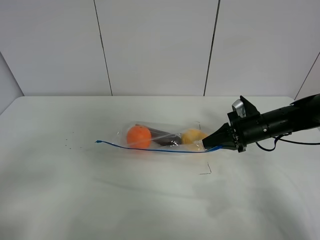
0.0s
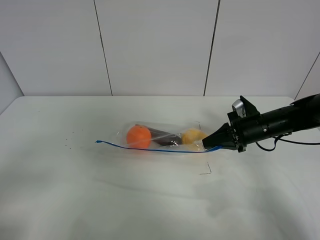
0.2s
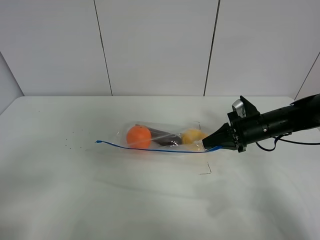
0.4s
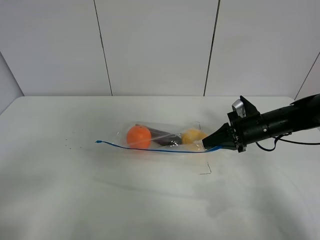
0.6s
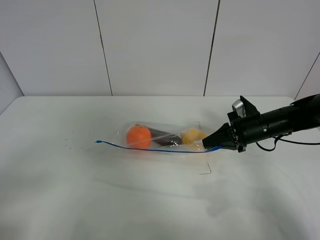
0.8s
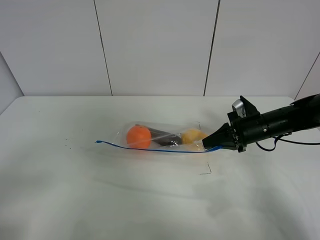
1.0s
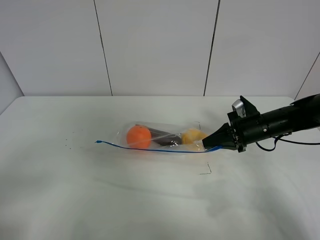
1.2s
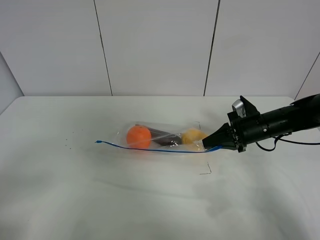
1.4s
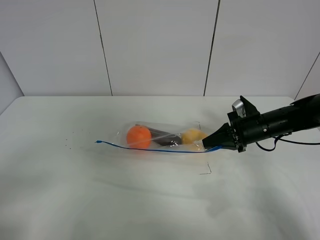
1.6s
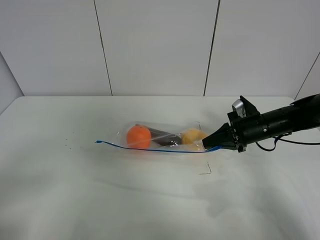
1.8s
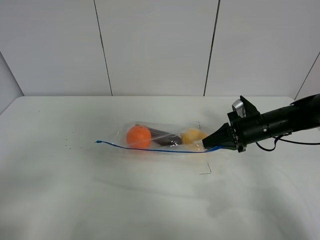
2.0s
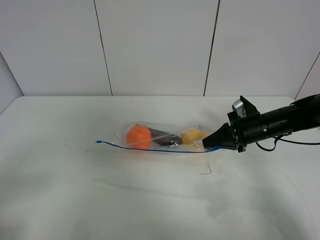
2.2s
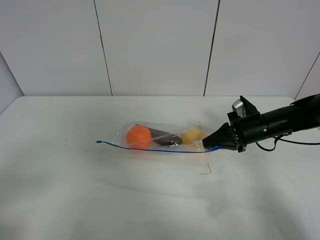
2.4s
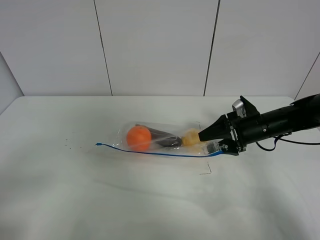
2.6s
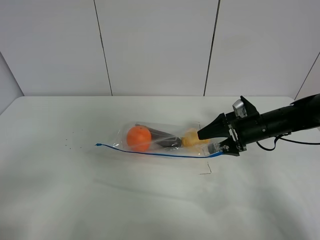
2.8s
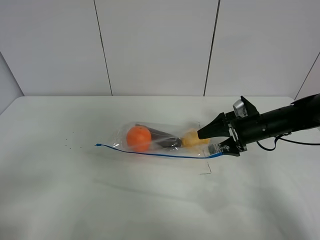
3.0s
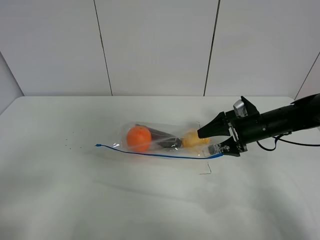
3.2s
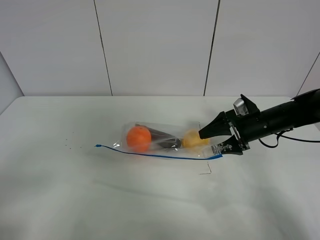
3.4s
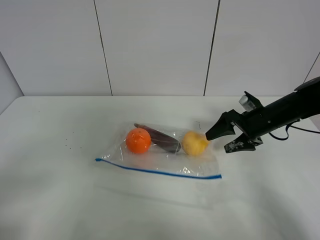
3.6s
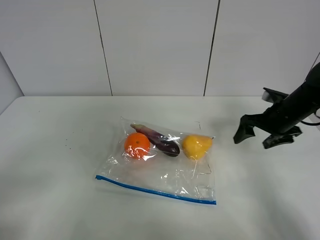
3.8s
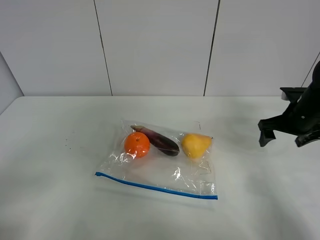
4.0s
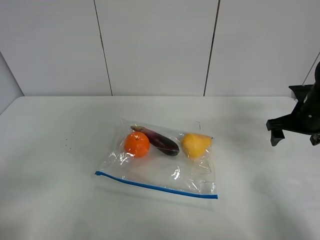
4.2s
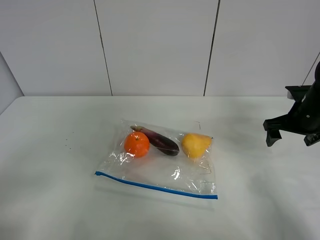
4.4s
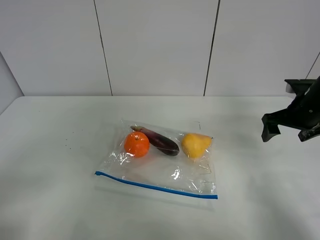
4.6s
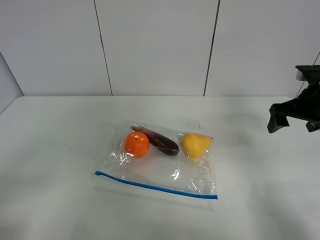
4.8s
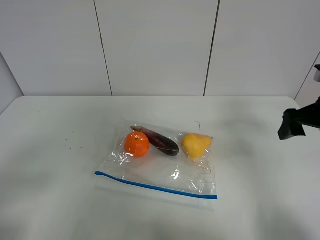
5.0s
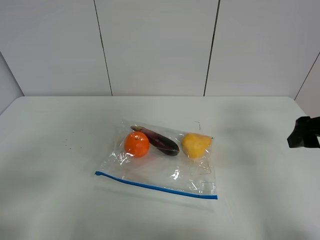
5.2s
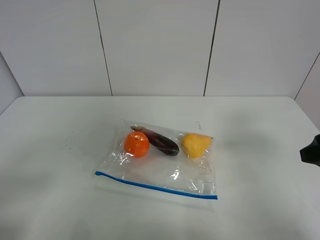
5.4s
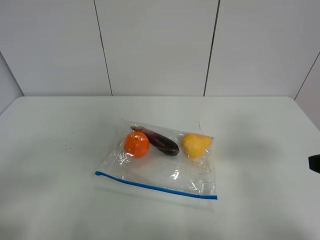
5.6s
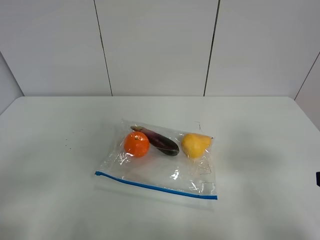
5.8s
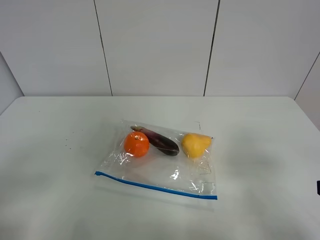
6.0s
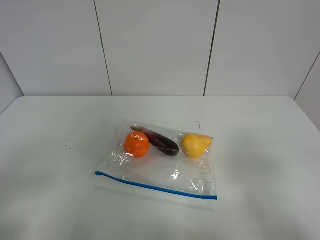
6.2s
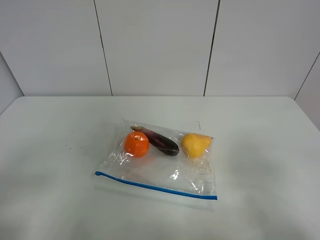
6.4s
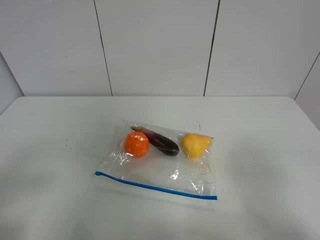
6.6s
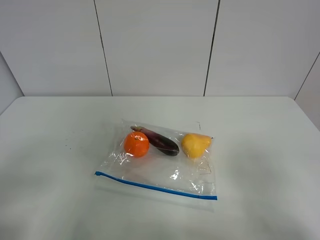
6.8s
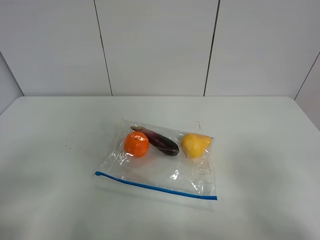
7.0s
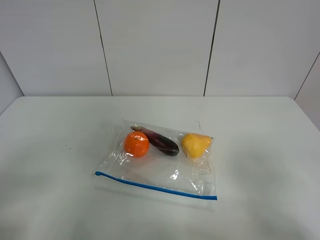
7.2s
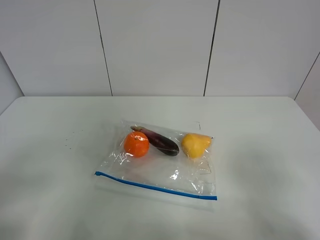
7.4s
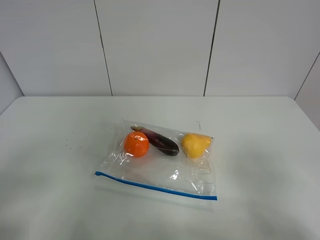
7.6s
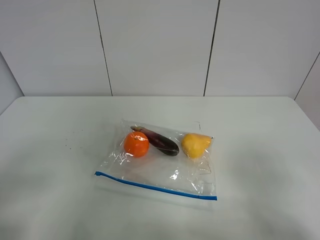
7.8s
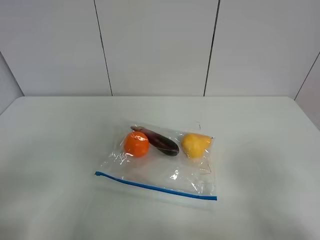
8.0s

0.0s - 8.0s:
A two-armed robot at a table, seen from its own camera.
Step, 0.0s - 3.6s: Place the fruit bag with right gripper.
1.6s - 3.2s: The right gripper opens up.
3.2s - 4.8s: The right gripper travels upward and to the right by about 15 cm.
4.8s - 6.4s: The right gripper goes about 25 cm backward.

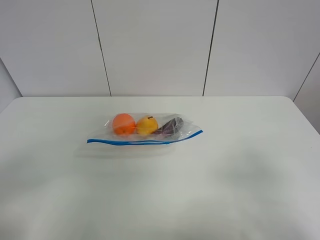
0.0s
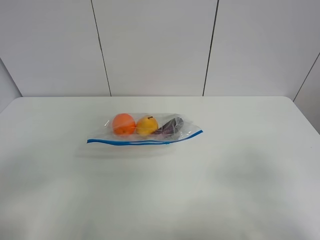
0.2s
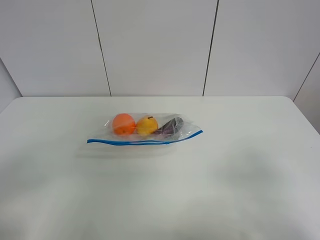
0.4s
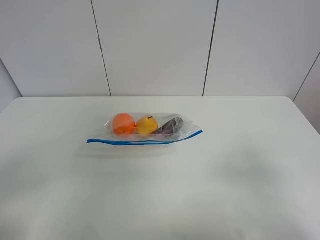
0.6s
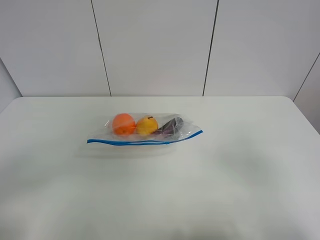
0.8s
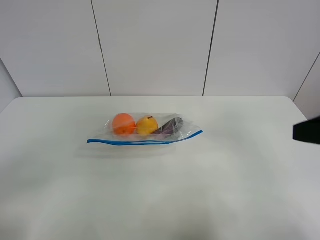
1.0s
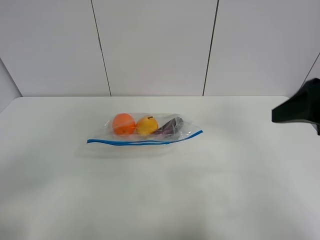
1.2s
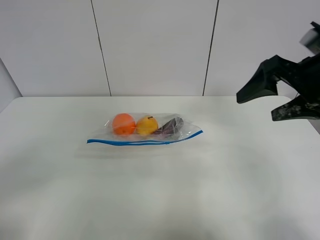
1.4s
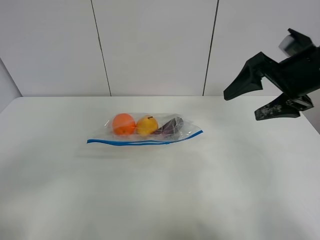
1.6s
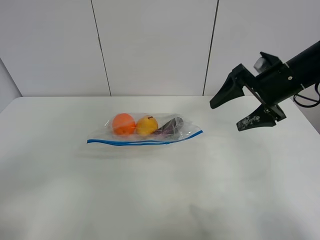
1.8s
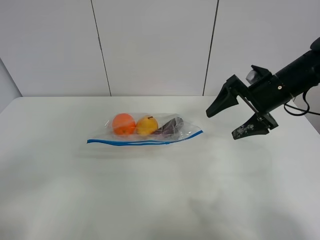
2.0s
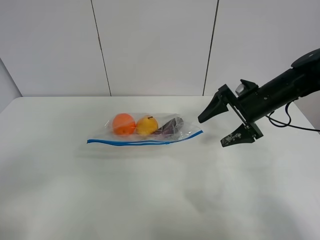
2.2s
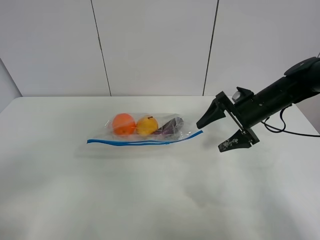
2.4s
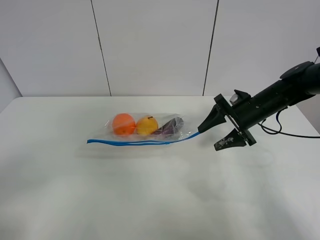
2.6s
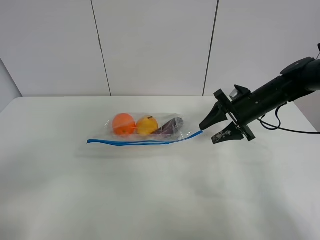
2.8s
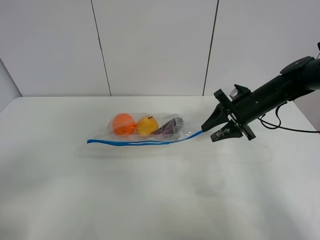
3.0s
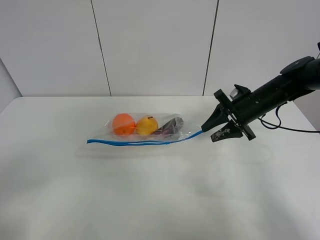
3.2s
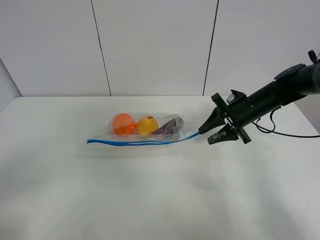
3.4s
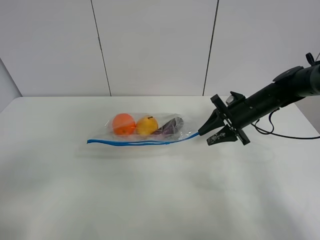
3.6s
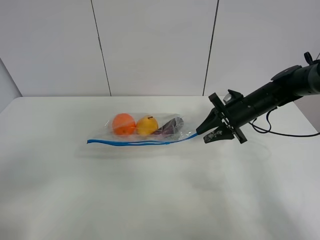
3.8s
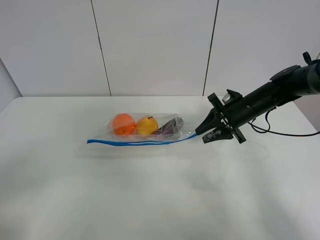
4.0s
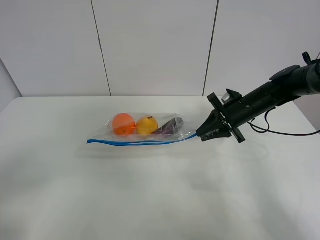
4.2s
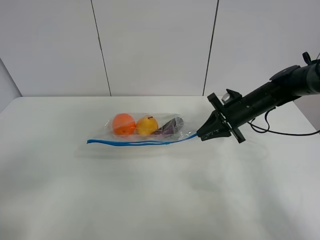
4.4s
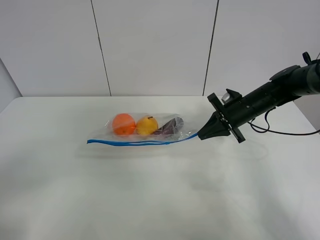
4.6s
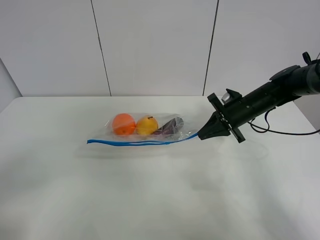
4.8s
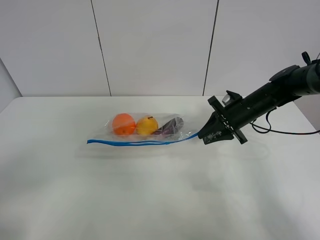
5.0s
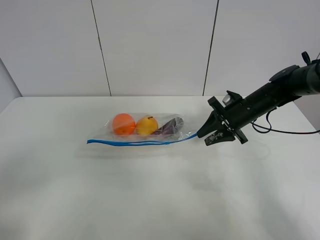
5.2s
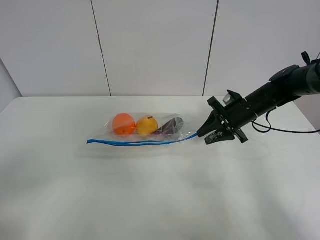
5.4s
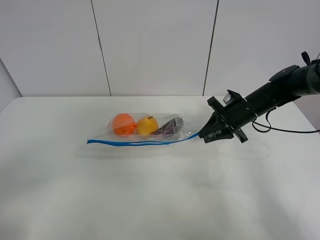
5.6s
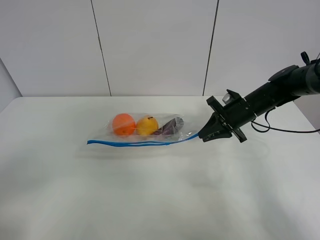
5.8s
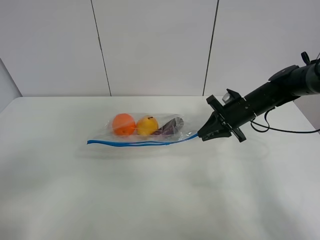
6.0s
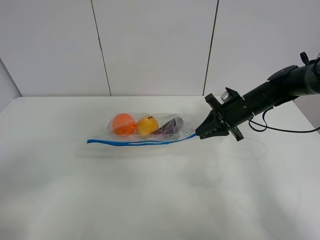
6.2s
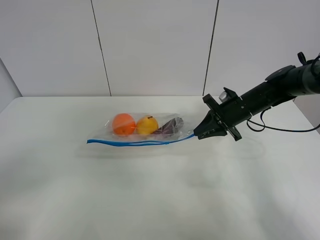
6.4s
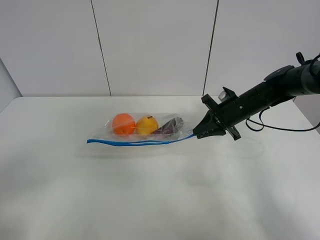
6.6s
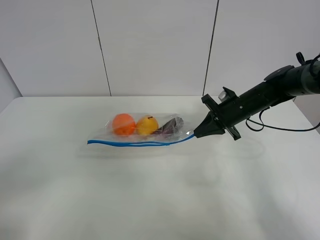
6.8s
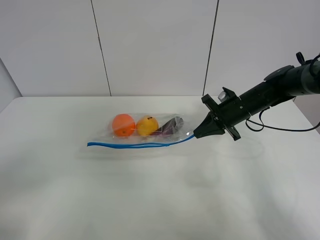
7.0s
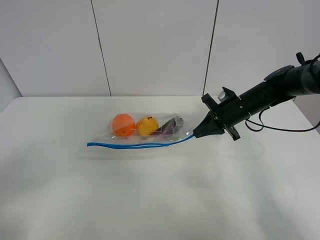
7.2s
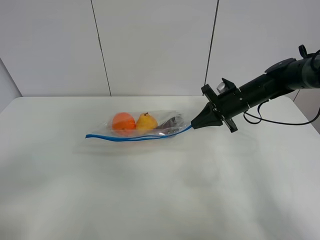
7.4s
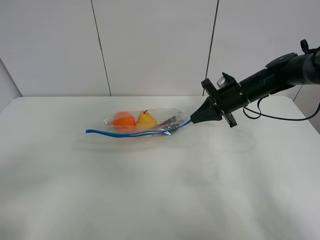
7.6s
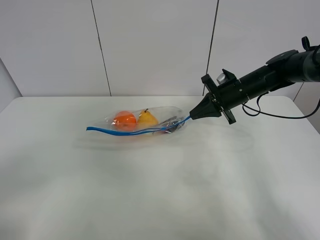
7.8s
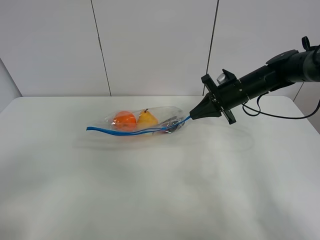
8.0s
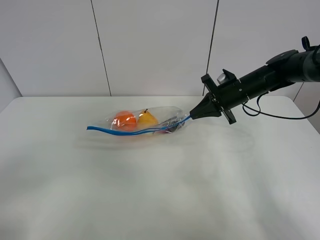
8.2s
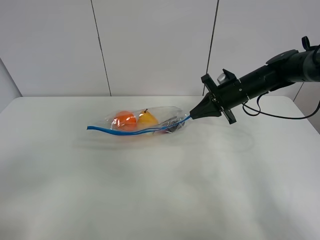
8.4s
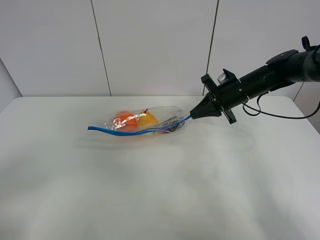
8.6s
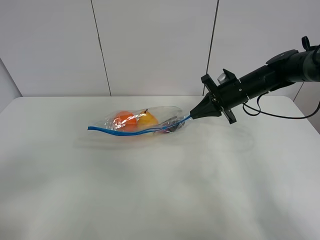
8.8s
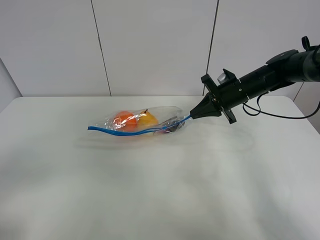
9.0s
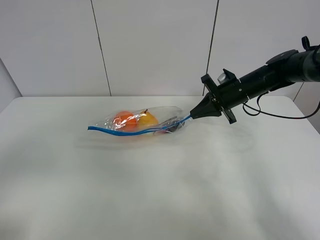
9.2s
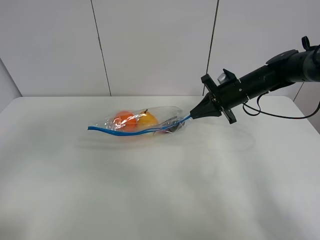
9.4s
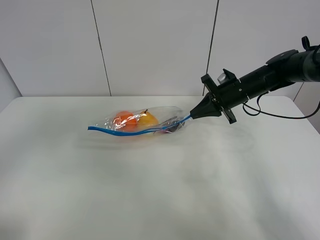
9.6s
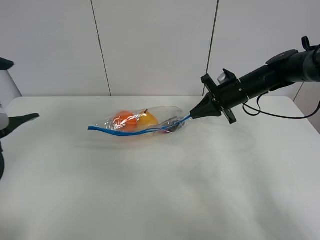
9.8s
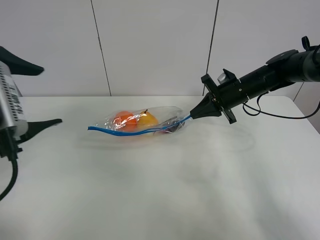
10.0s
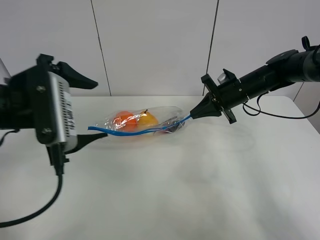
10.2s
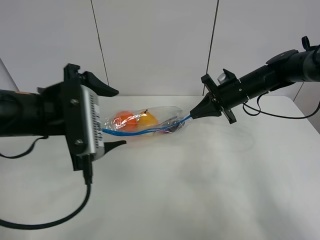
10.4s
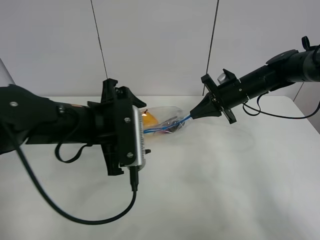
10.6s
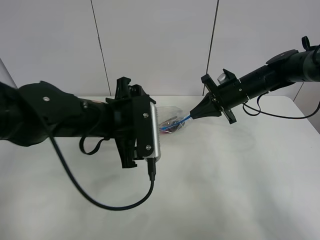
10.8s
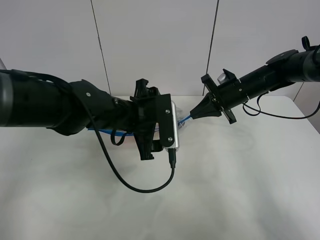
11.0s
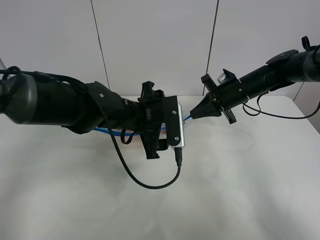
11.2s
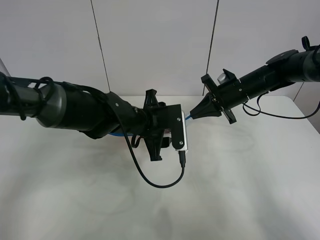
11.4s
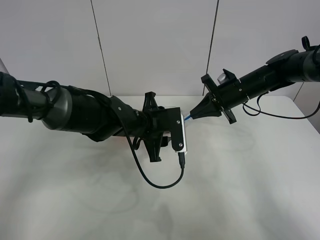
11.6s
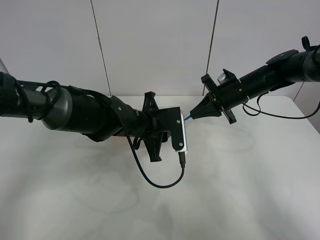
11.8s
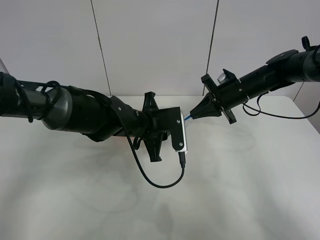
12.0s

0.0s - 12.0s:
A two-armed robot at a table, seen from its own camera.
Step, 0.0s - 6.8s: Grasp the fruit bag with right gripper.
Step, 7.0s - 8.0s: Lift the fruit bag with your right gripper.
0.0s - 1.6s: The right gripper heads forward, covering approximately 30 cm.
1.6s - 3.0s: The right gripper travels downward and forward by approximately 15 cm, and closes its fingers.
3.0s - 4.4s: The grippers stay close to where they were, moving slightly.
4.4s - 6.0s: Both grippers stay about where they are.
6.0s - 9.0s: The grippers move only a little.
9.0s - 10.4s: The left gripper heads forward and to the right, covering some 25 cm.
10.4s - 12.0s: The left gripper moves forward, downward and to the right, about 20 cm, and closes up.

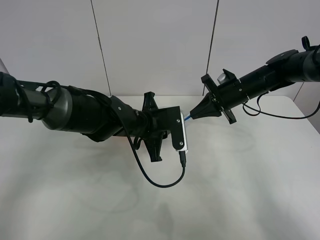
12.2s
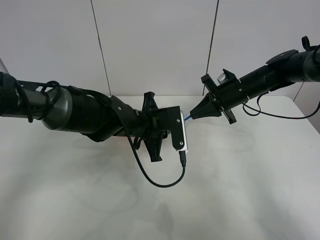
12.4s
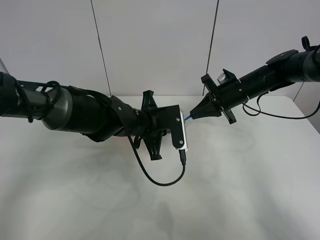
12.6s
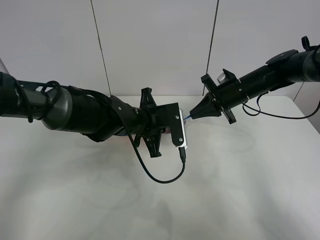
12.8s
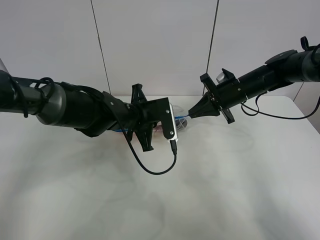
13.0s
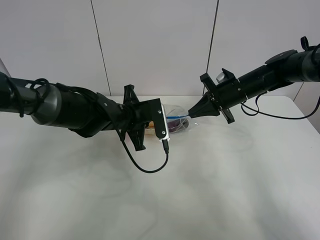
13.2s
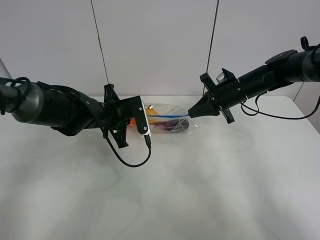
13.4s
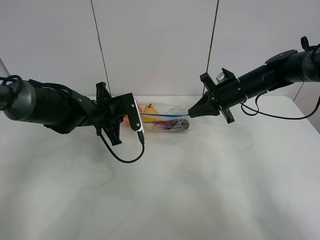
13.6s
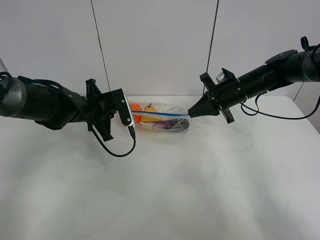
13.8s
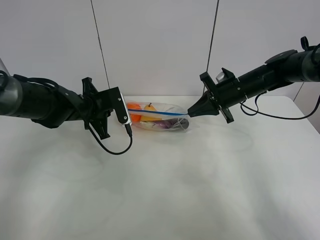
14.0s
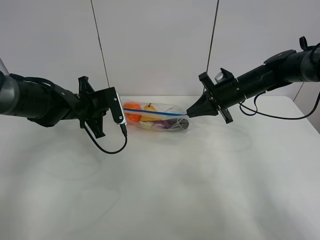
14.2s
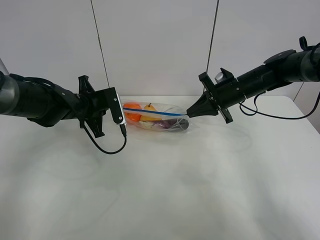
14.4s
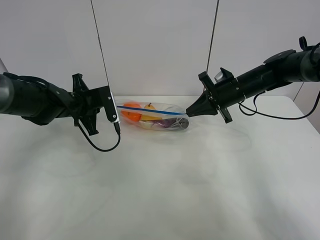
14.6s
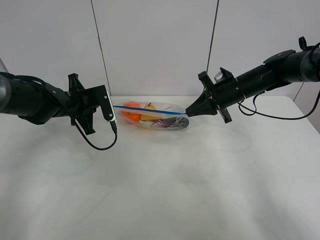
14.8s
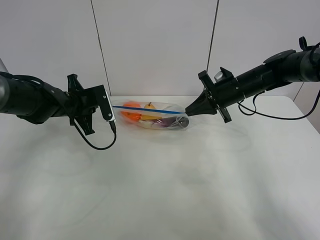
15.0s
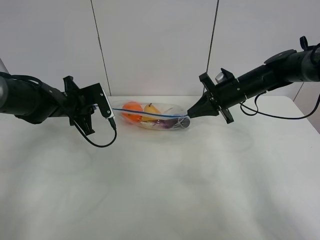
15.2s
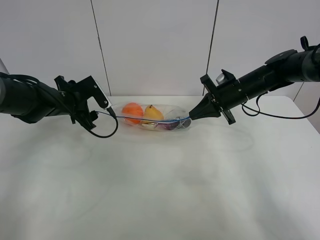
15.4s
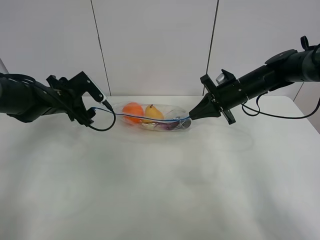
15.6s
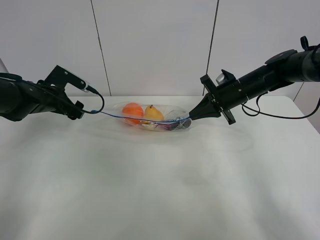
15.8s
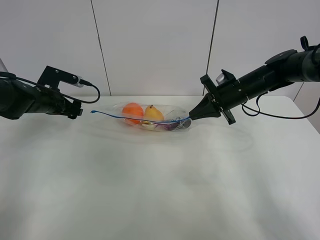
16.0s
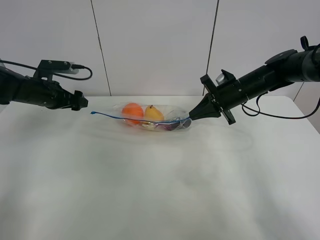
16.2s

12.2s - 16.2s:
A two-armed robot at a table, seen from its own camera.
Step, 12.2s - 15.4s: Pull the fruit bag with left gripper.
12.2s - 13.6s: The left gripper is displaced to the left by some 10 cm.
13.6s - 14.8s: The left gripper travels to the left by some 5 cm.
14.8s - 16.2s: The left gripper goes approximately 10 cm to the left, and opens up.
